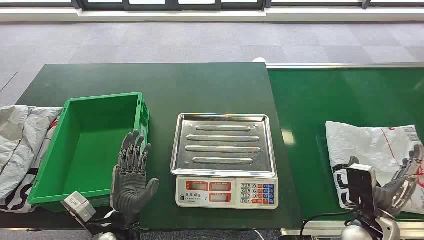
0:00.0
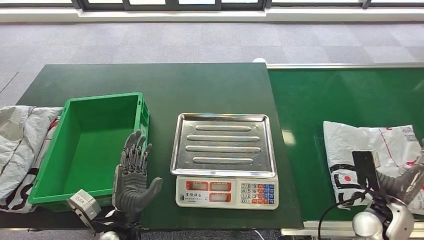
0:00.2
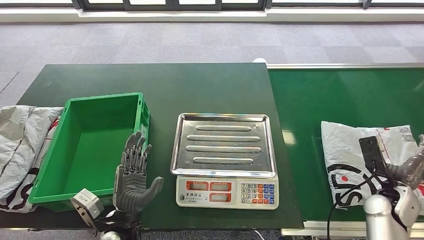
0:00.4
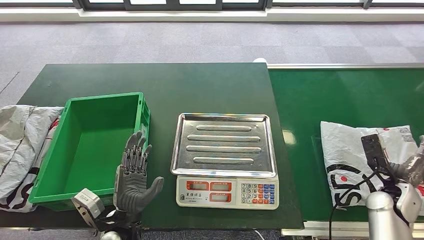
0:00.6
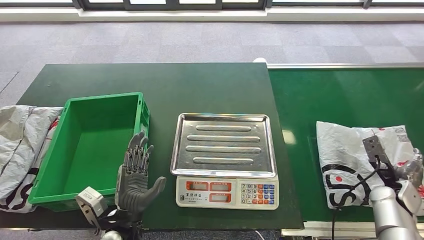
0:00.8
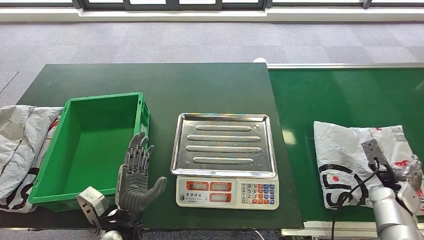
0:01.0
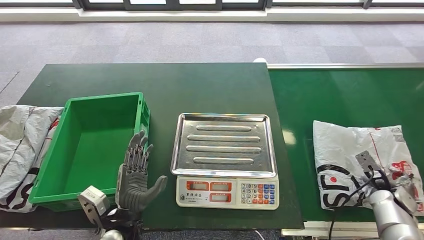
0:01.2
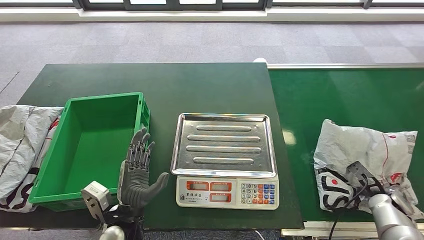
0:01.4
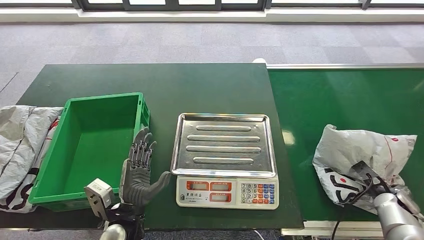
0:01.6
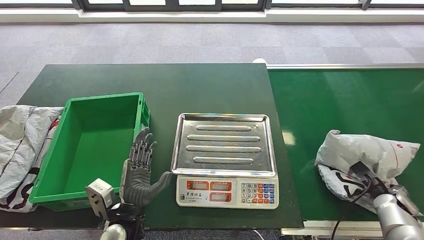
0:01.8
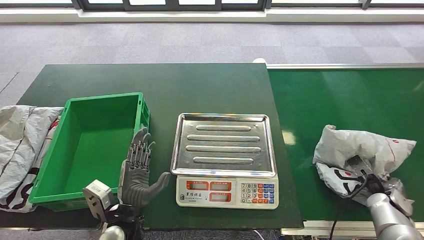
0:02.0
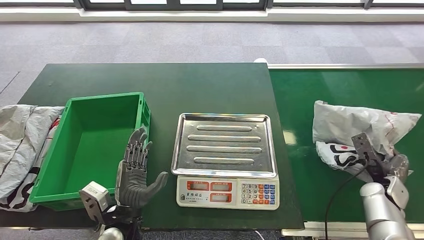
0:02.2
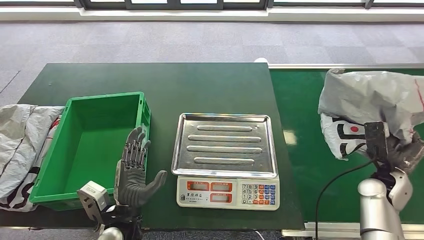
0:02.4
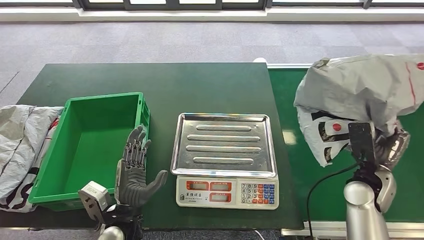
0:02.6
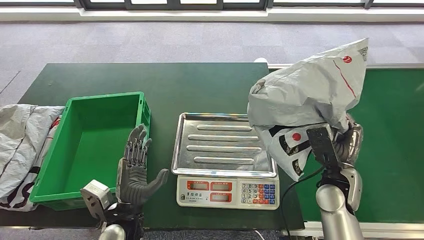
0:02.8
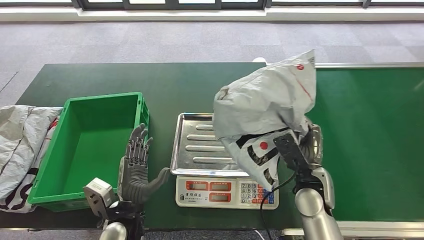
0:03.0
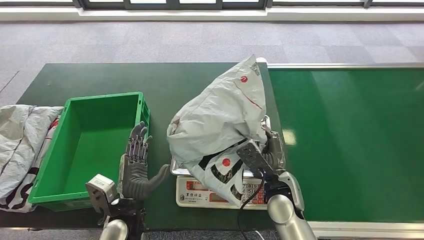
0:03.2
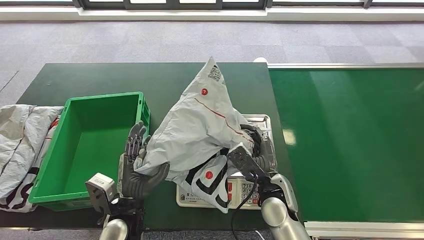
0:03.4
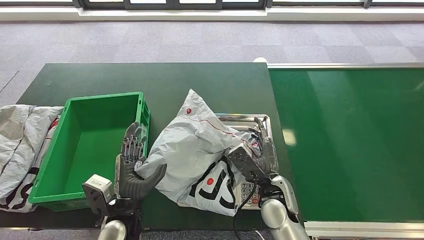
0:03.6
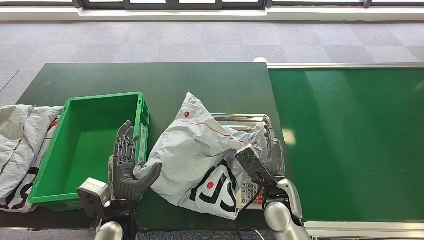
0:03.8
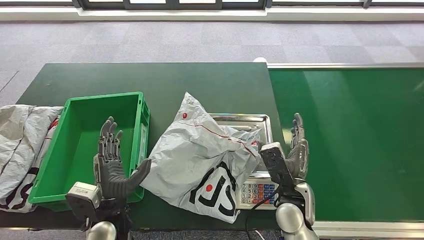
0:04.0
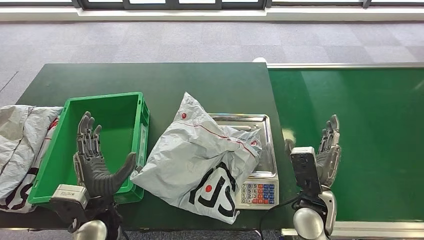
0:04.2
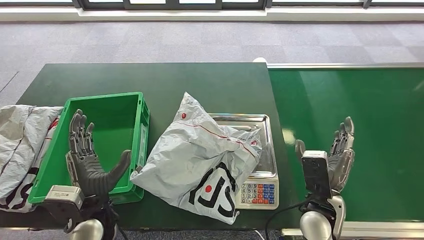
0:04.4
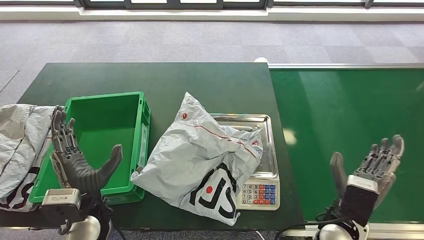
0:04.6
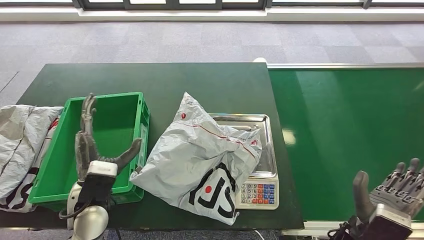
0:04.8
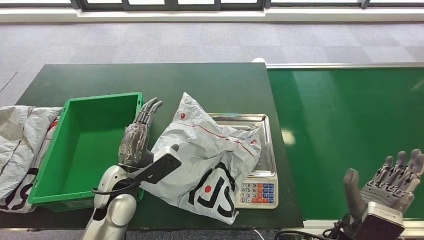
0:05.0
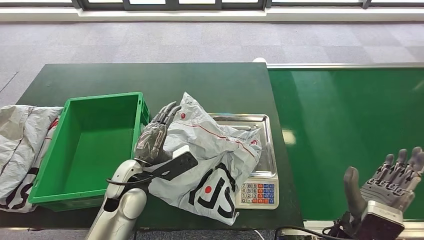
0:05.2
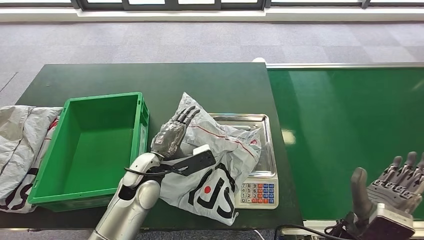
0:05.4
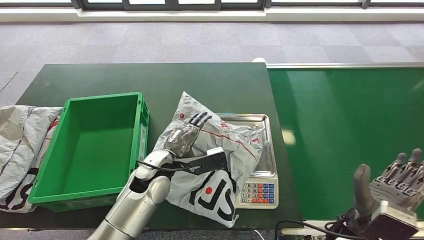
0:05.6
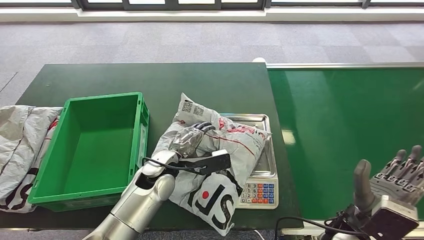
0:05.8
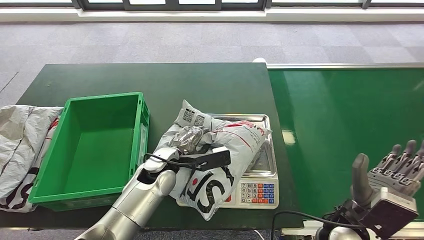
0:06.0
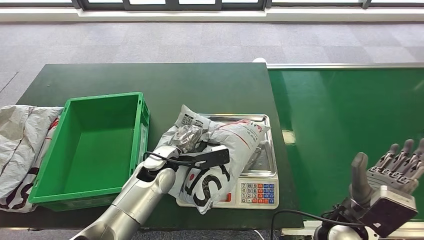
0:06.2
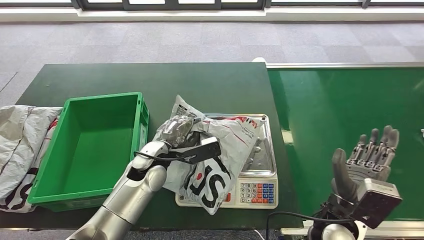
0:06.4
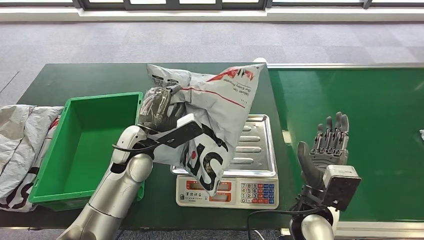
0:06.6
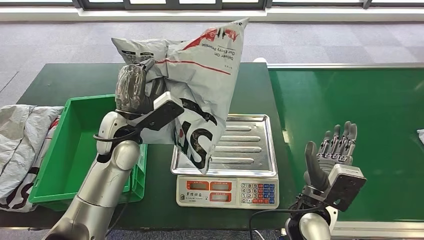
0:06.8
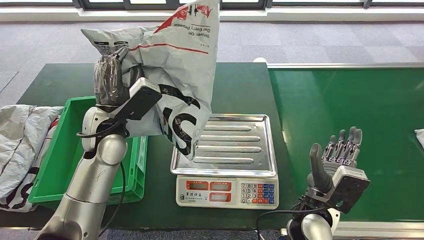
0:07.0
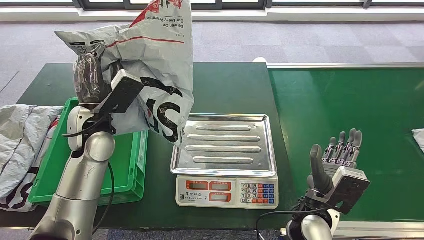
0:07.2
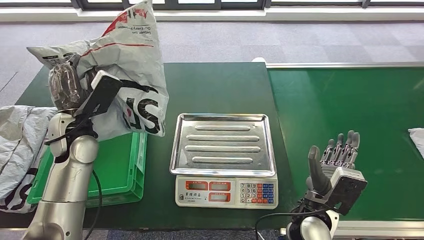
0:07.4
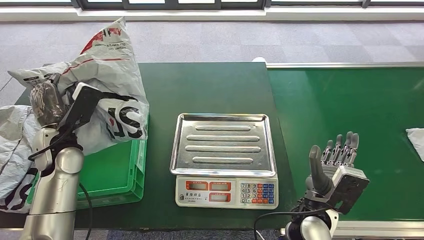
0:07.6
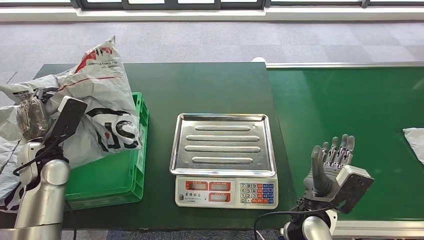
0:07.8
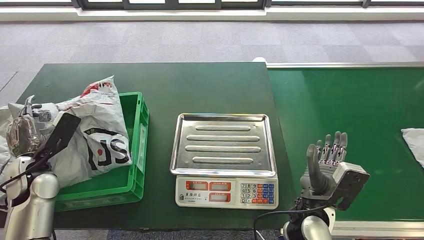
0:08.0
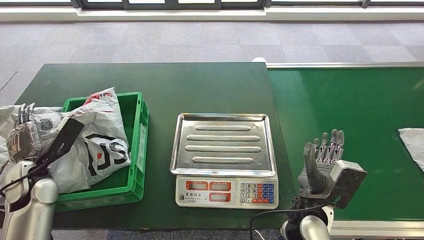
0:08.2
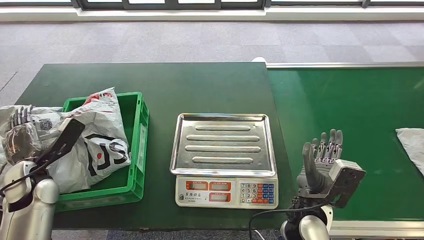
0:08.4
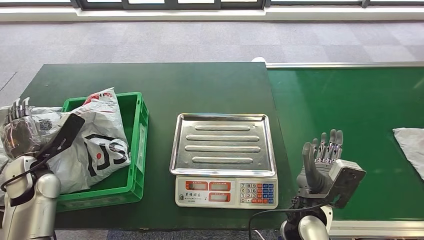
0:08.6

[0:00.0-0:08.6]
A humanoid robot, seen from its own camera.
Step, 0:00.0 to 0:02.6: Take the parcel off the conveyor belt.
Step, 0:02.8 to 0:04.6: Place the parcel onto the inbound machine.
Step, 0:05.0 to 0:07.2: Pick up the parcel from the inbound machine.
Step, 0:07.4 to 0:08.6: Put the parcel inside the courier box.

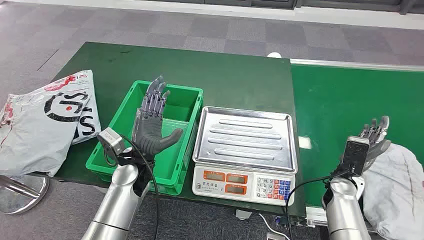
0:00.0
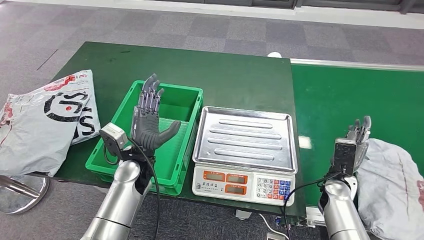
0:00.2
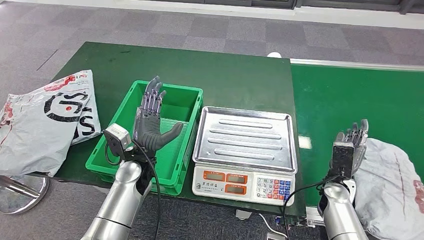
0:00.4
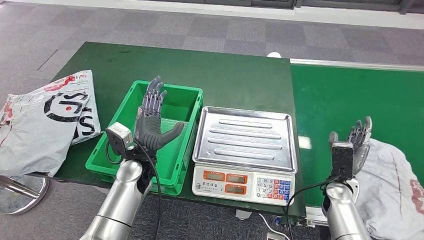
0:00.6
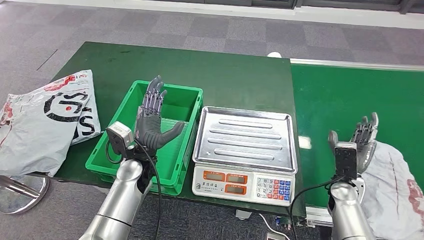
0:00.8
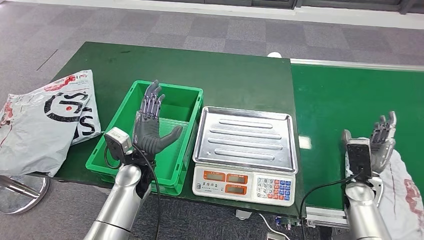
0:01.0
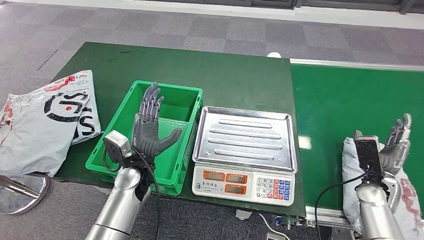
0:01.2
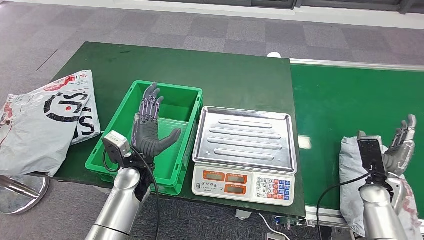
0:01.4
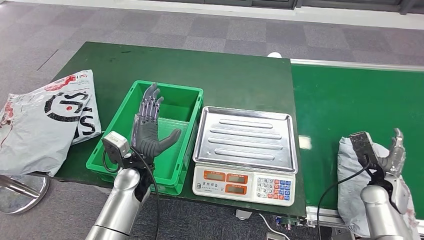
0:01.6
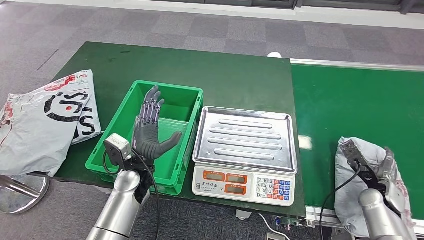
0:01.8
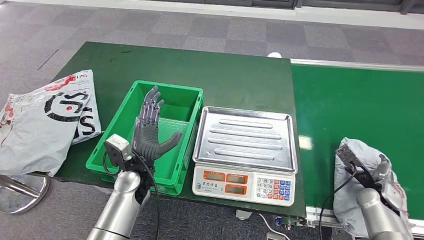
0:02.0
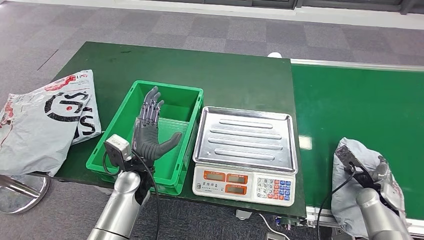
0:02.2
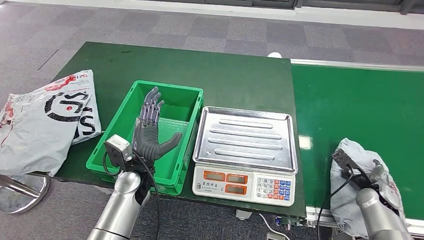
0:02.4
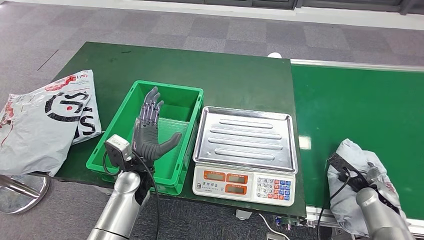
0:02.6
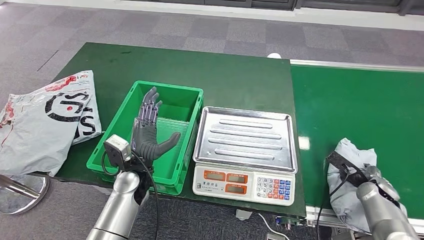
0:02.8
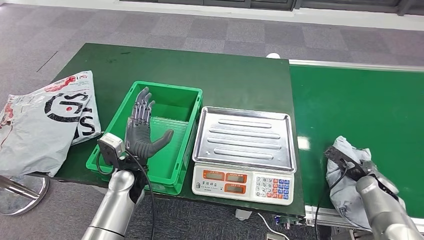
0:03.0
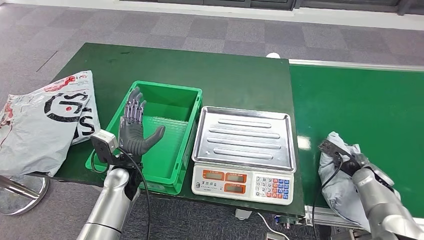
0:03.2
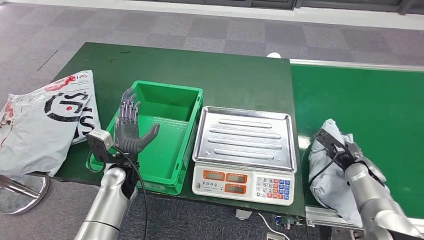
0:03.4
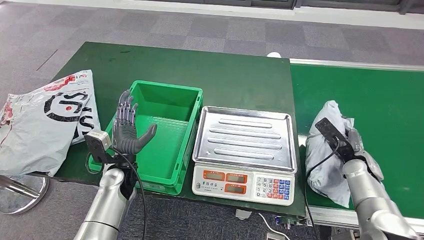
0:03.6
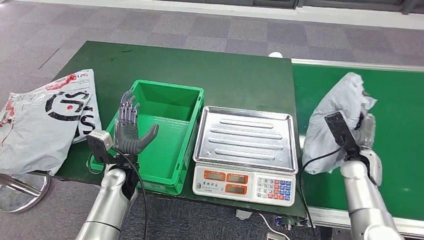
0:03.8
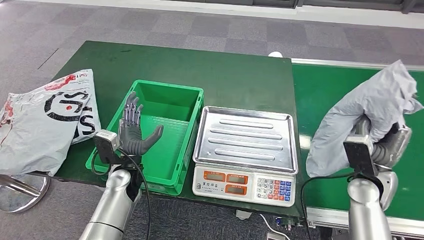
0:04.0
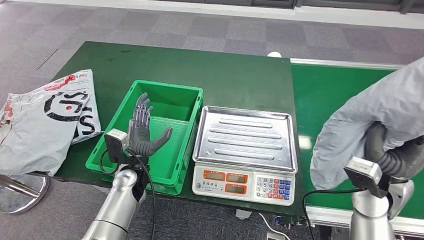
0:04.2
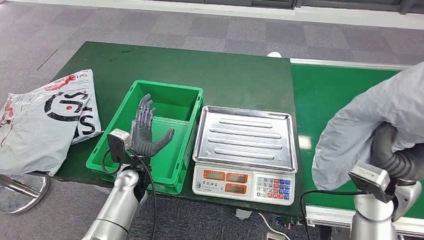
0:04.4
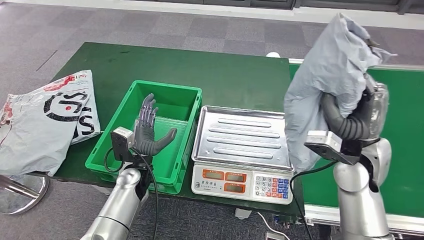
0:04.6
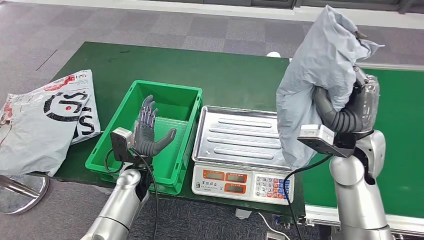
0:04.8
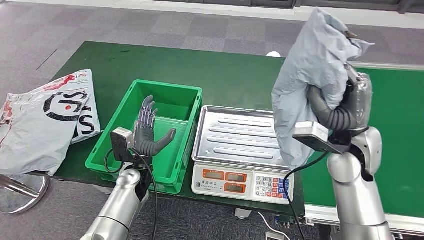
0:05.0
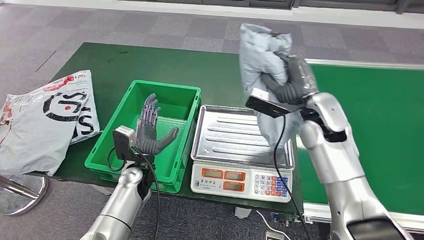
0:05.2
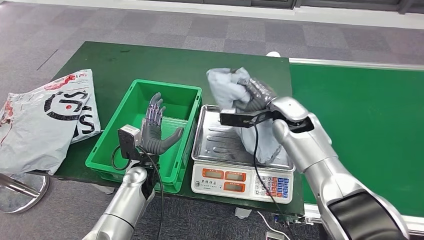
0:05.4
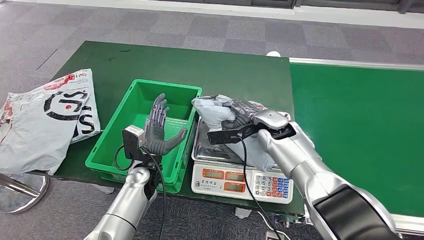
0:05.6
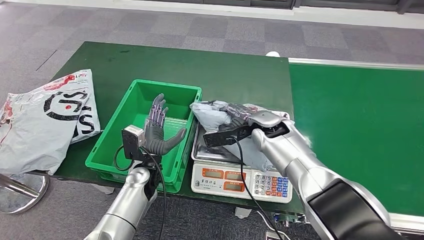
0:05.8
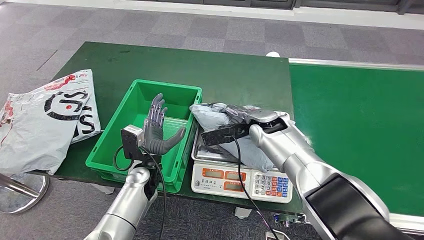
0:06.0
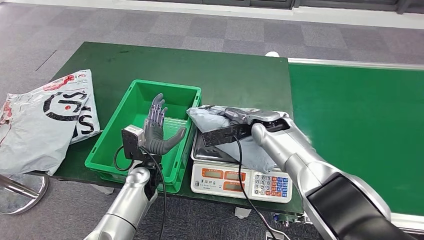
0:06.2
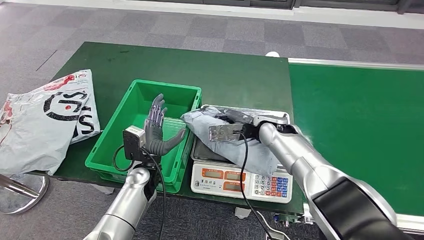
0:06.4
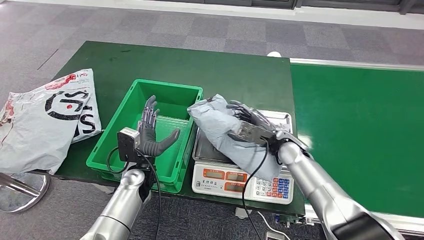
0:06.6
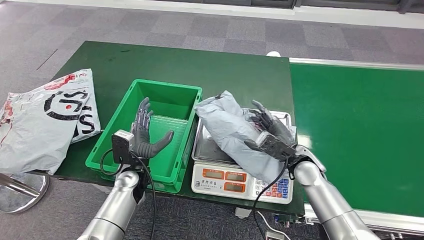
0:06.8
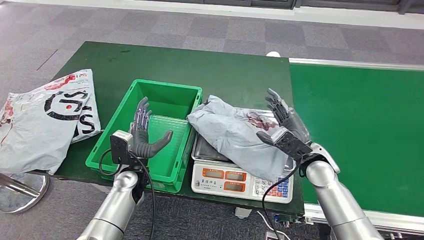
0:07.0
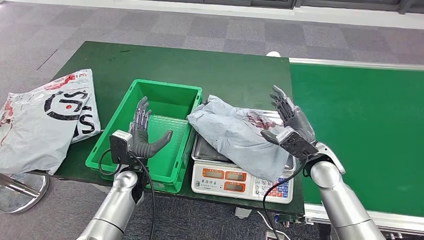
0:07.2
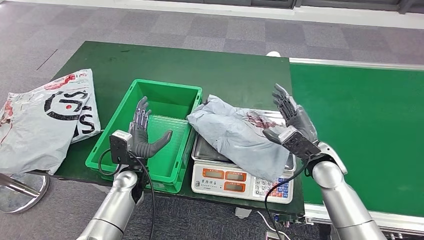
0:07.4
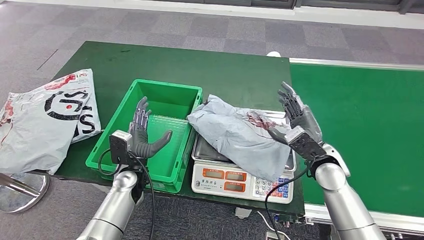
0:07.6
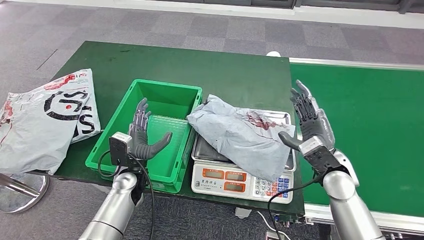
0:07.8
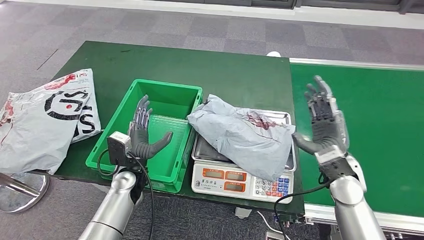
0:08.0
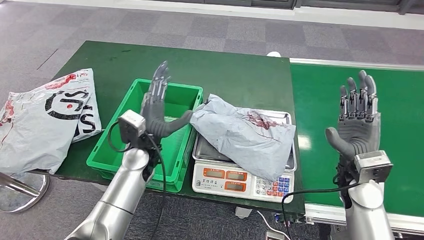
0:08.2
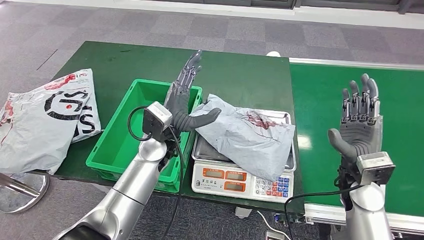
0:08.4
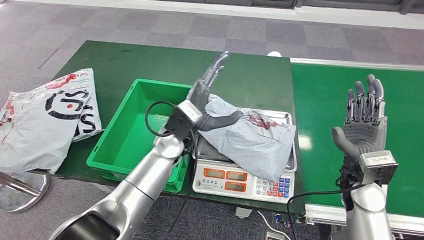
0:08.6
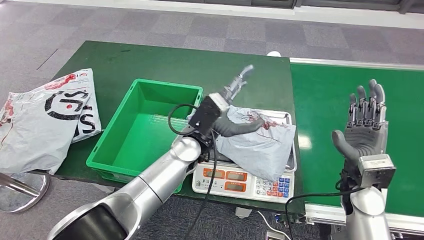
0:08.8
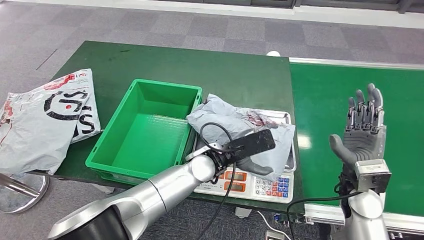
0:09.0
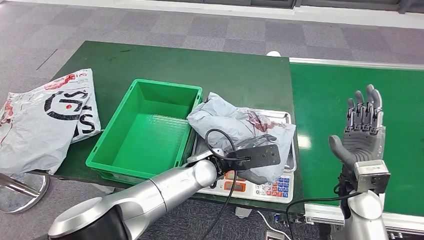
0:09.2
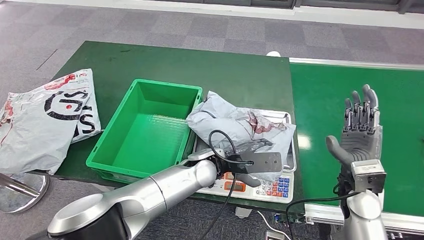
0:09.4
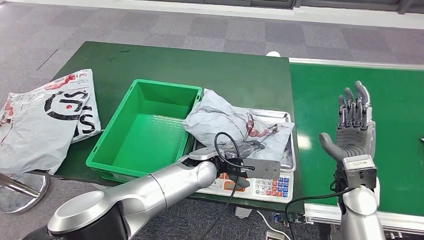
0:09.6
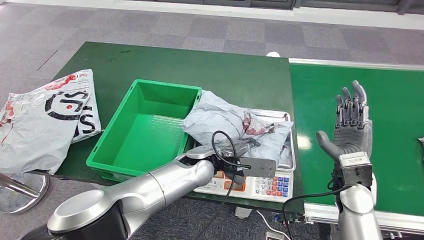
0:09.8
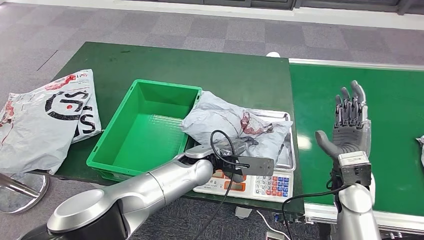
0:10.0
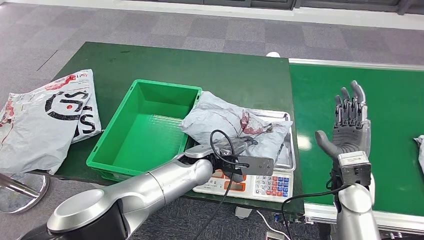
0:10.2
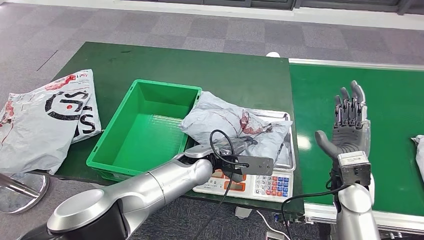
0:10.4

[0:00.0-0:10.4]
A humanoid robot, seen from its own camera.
Step, 0:00.0 to 0:03.6: Take the parcel off the conveyor belt.
Step, 0:03.8 to 0:07.8: Place the parcel onto the inbound machine.
0:07.4 to 0:09.0: The left hand shifts some 20 cm to the right and upward; the right hand goes about 10 cm backward and to the right.
